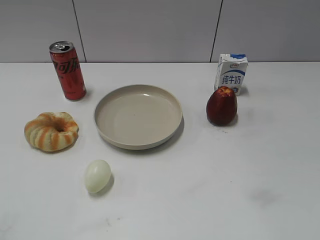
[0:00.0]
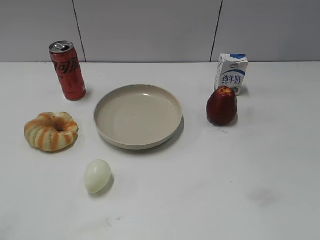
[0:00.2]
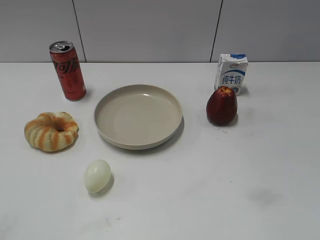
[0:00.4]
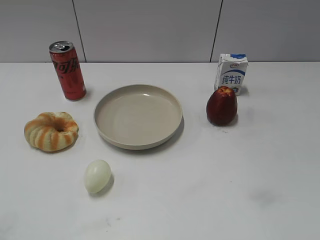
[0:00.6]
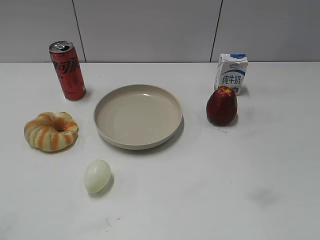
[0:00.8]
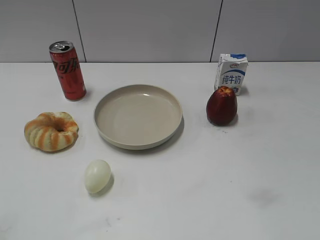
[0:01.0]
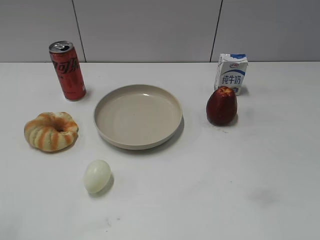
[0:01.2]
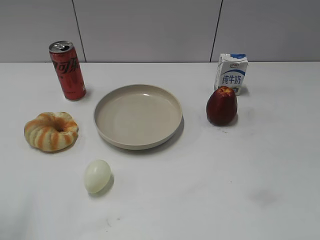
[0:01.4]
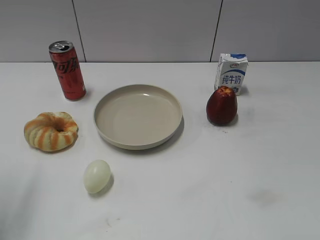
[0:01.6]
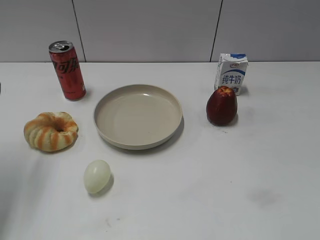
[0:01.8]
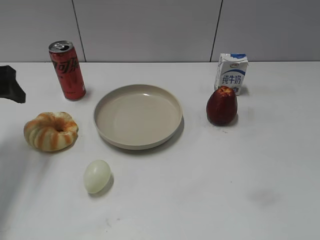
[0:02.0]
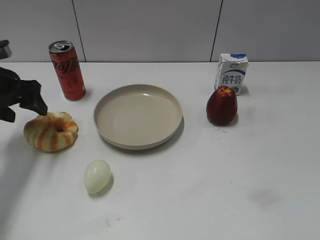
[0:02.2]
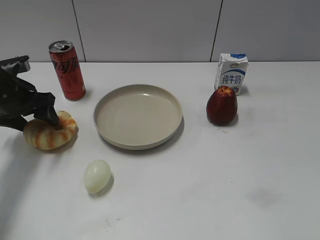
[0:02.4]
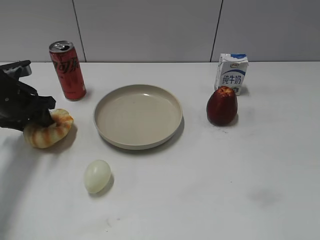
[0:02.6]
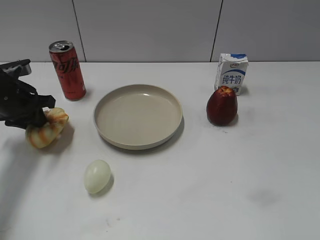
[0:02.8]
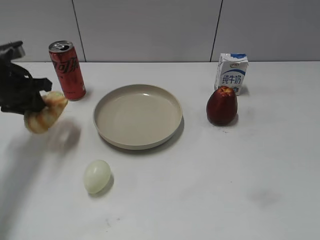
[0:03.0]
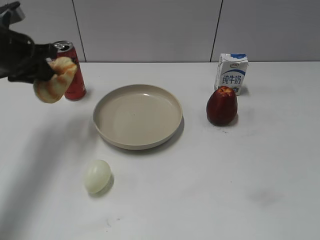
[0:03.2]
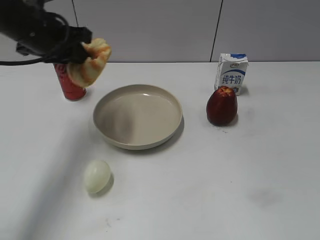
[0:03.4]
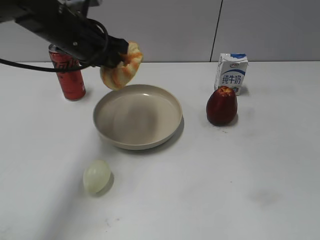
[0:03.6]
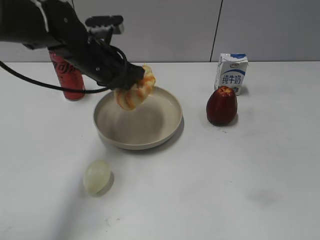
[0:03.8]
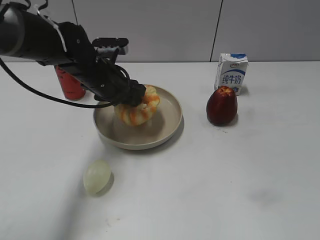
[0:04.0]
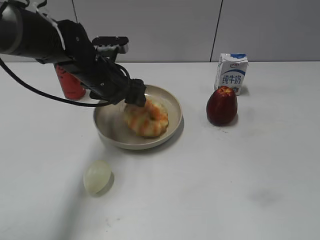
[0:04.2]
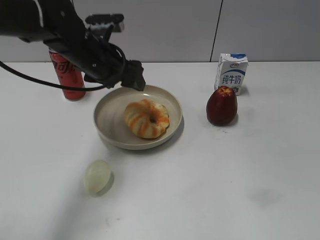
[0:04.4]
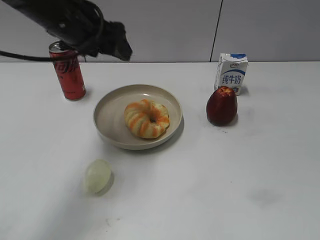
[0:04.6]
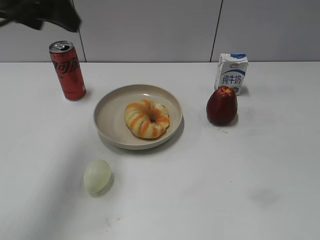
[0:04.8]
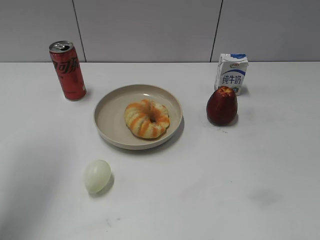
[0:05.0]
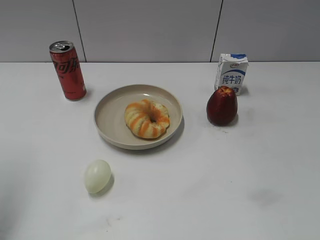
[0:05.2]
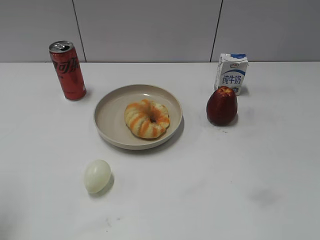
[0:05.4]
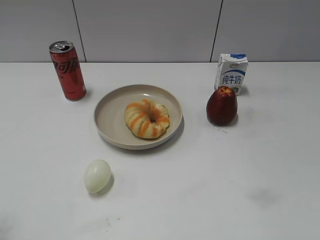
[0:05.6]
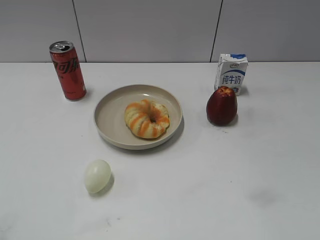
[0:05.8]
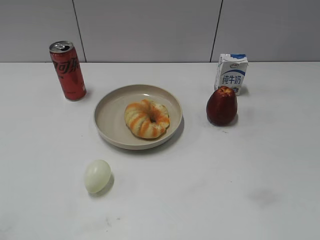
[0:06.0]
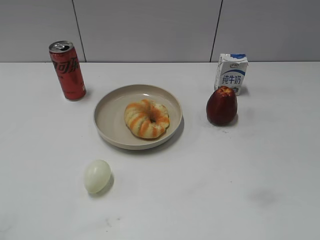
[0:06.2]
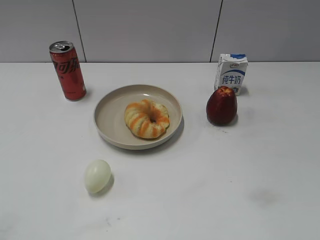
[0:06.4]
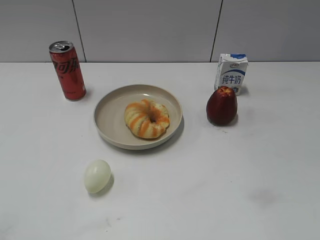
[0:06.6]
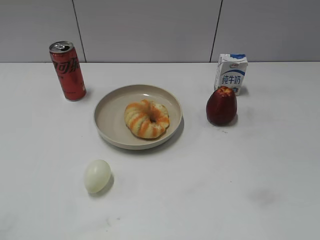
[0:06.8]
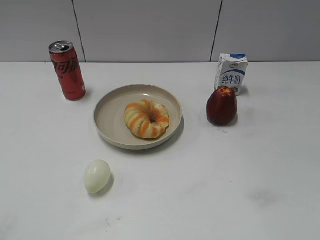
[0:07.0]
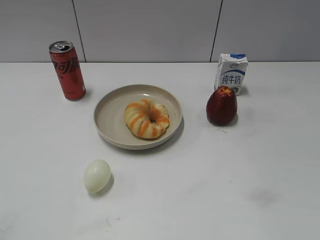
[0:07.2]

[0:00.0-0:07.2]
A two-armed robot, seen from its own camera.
Step, 0:01.0 to 0:02.6: Grasp the round bread with left gripper.
Step, 0:02.8 to 0:04.2: Place the round bread on the plate with left gripper.
0:01.4 to 0:02.8: The left gripper moves forward and downward, about 25 cm, and closes up.
0:02.8 to 0:04.4: The left gripper travels to the right and upward by some 20 cm, and opens.
0:04.4 to 0:05.8: The left gripper goes about 35 cm backward and to the left.
